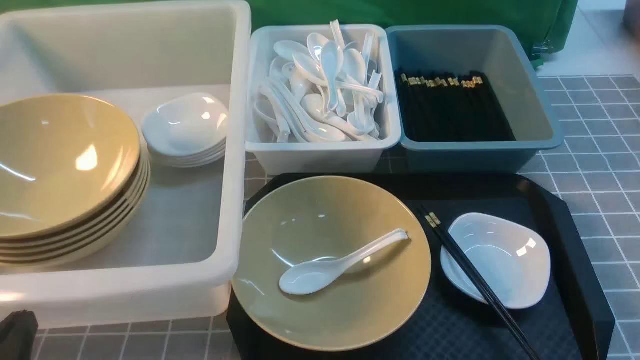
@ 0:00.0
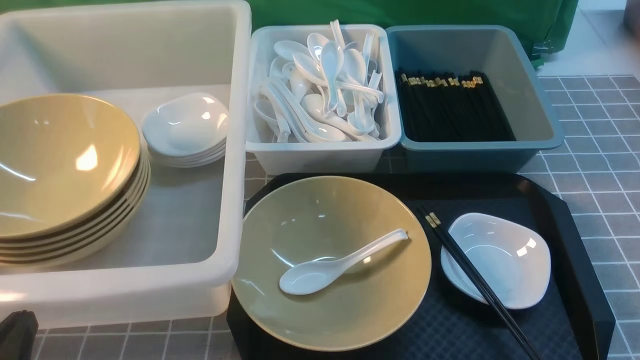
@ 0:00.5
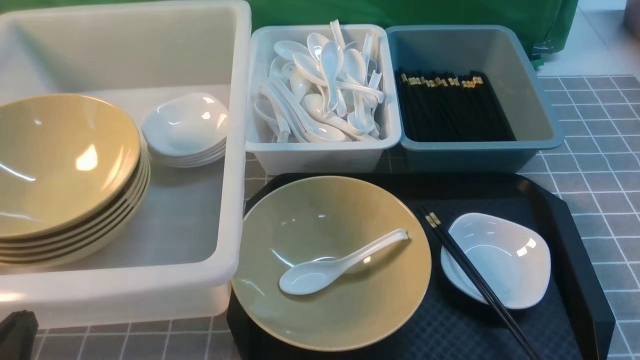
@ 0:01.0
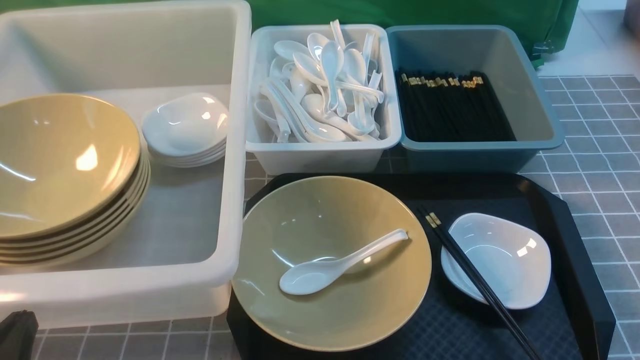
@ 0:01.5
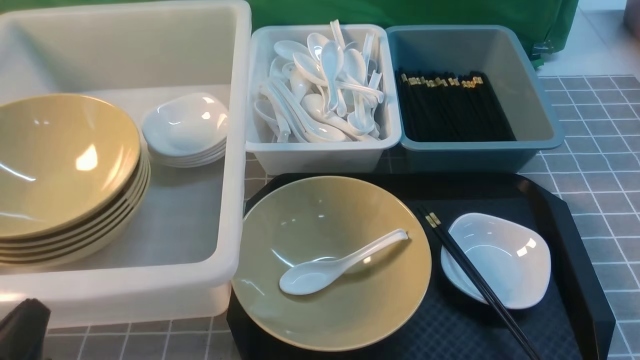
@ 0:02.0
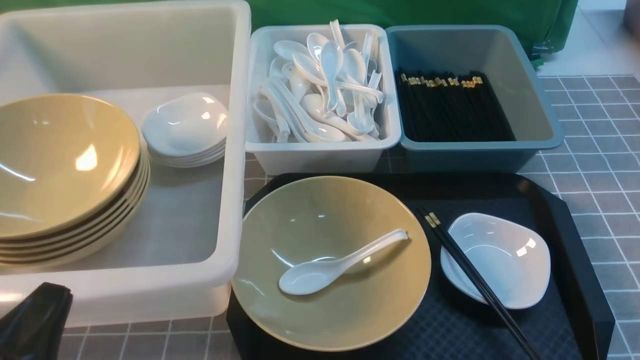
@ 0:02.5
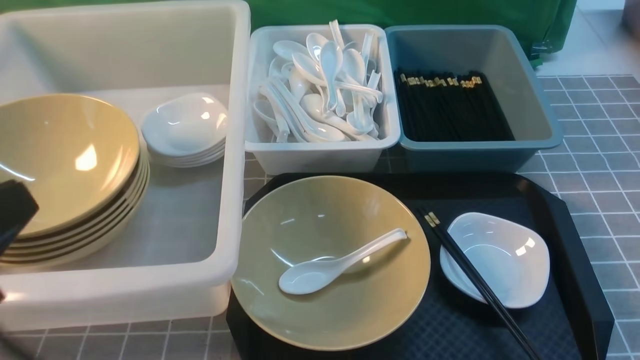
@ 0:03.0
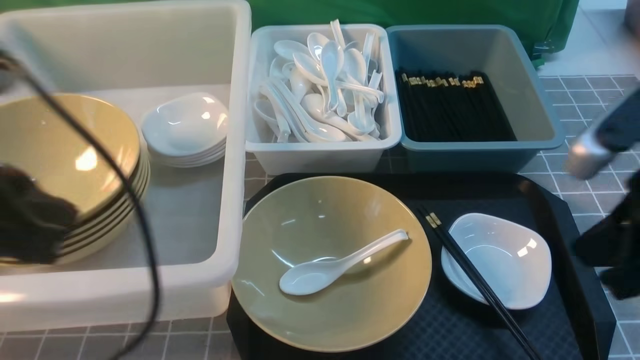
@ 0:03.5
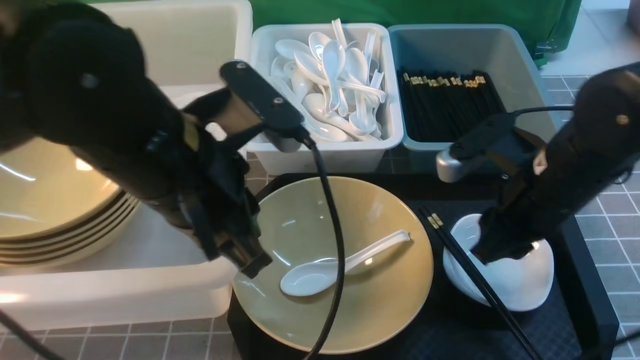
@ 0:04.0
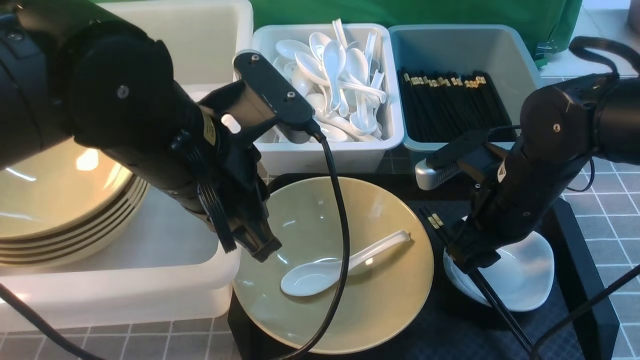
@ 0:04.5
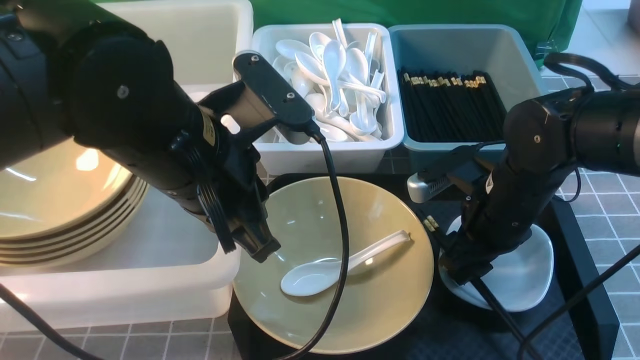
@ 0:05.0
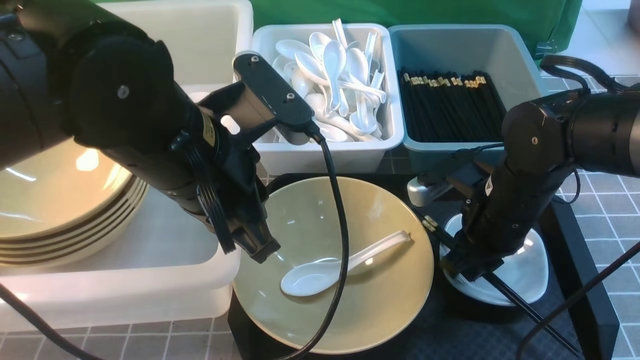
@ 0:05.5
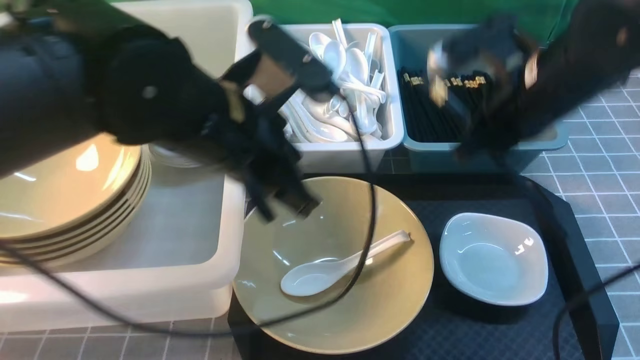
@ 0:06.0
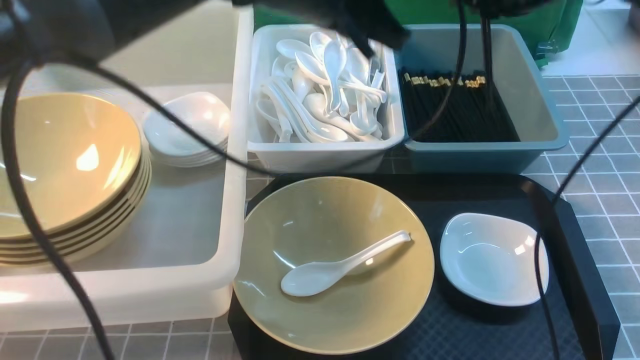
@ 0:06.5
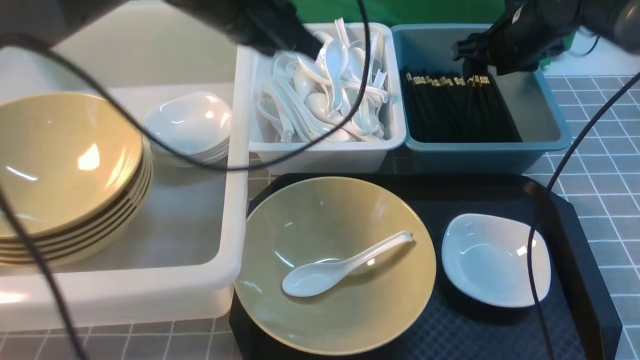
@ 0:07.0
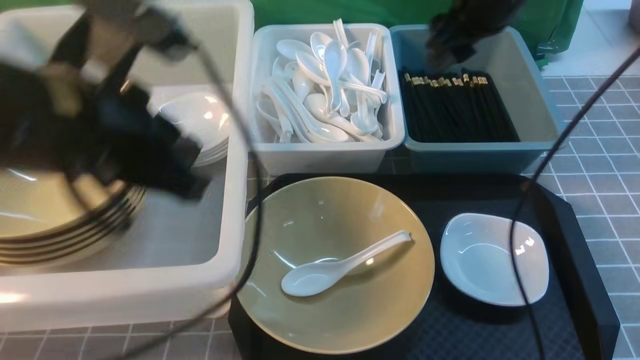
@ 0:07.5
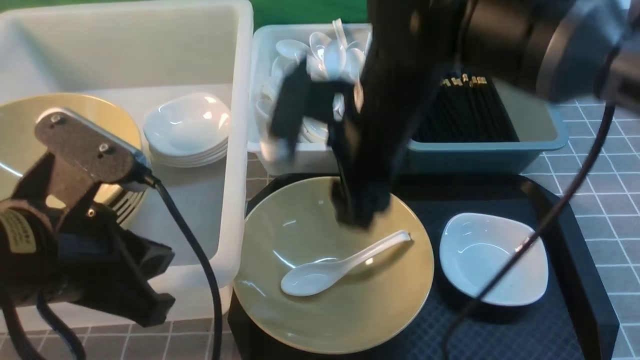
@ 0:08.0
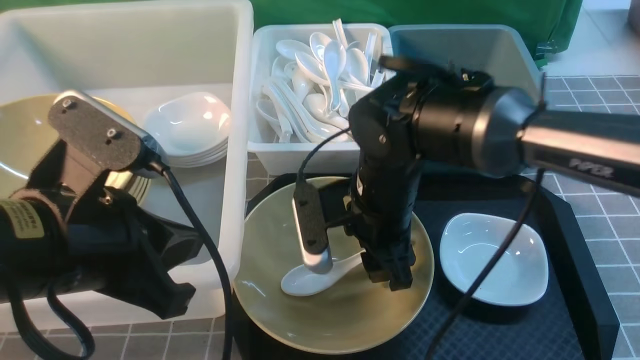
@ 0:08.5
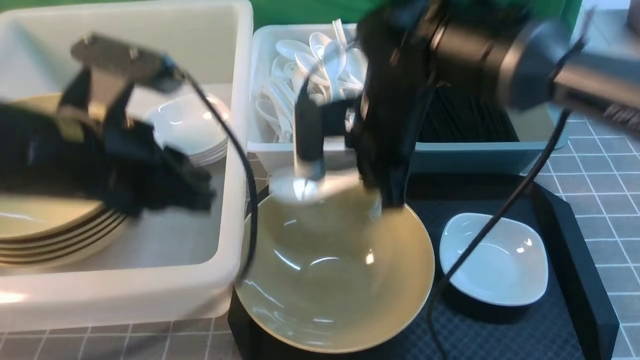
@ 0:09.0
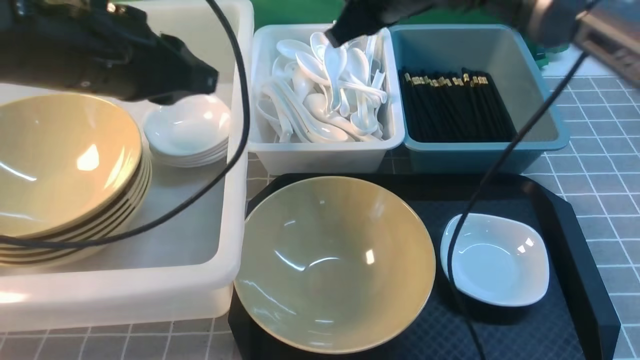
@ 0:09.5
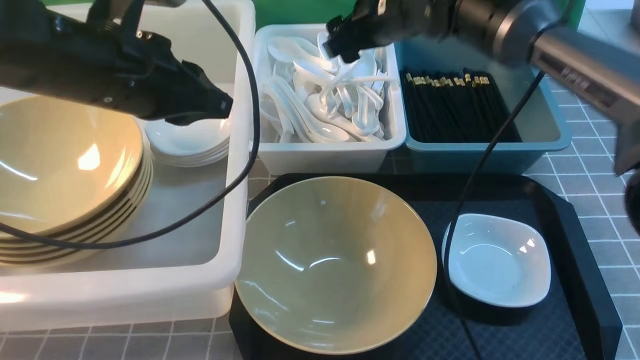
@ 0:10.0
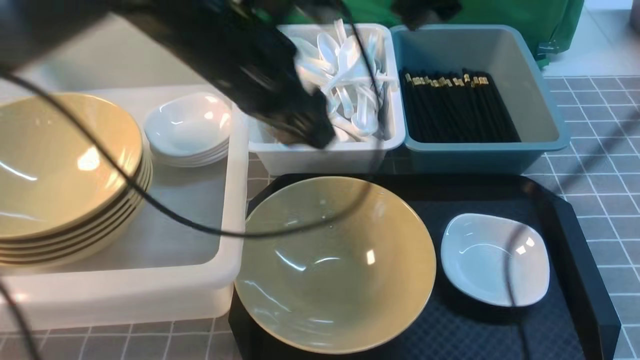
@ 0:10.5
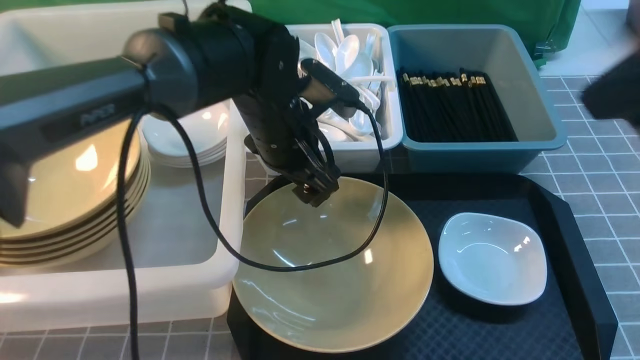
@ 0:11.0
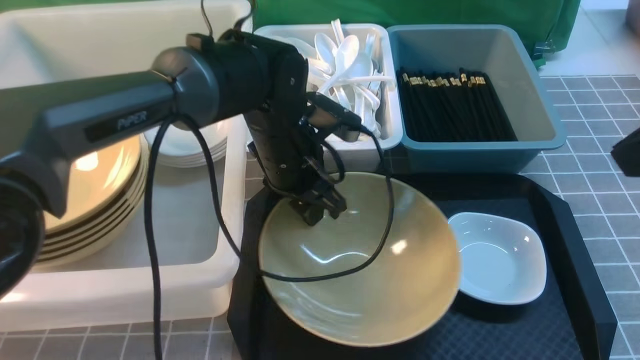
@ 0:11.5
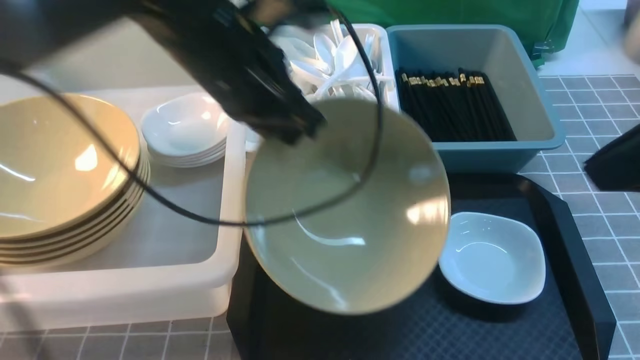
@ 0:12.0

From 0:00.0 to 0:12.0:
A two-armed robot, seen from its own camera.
Task of the whole recording: on grey table put chopsticks spoon bowls plates into blue grey white boxes.
Step, from 0:00.0 to 0:05.5: use the right arm to grab the chopsticks.
Step, from 0:06.0 to 0:07.0: use the right arm to put the chopsticks into the small storage box on the right.
Step, from 0:07.5 to 0:09.0: use the right arm to grab the soup spoon in the middle.
Step, from 0:10.0 to 0:11.5: use the left arm to grab the yellow noodle bowl on the left.
From 0:02.0 to 0:04.0: The left gripper is displaced forward, to the right and upward by roughly 25 cm. The right gripper goes approximately 25 cm forward and to the left, and closes, then opens again.
From 0:04.0 to 0:06.0: The right gripper moves upward and forward, roughly 10 cm, and opens and closes again, while the left gripper moves approximately 5 cm.
From 0:06.0 to 0:08.0: The left gripper shifts some 15 cm to the left and backward; the right gripper shifts about 15 cm to the left, and opens up.
From 0:08.0 to 0:10.0: The two grippers go some 15 cm forward. The right gripper closes, then reopens.
From 0:10.0 to 0:12.0: The right gripper is displaced backward and to the right by approximately 35 cm, and closes up. Meanwhile the left gripper is displaced to the right by roughly 5 cm, reaches roughly 10 cm downward, then returns, and opens and closes again.

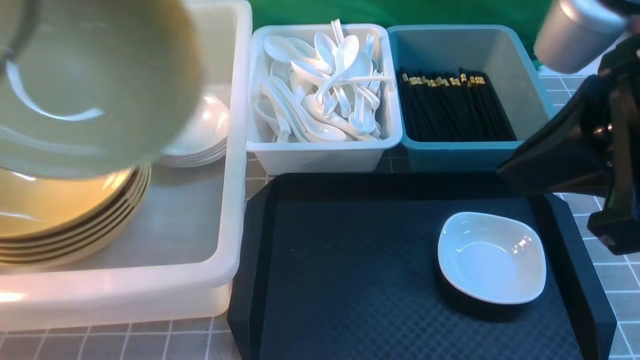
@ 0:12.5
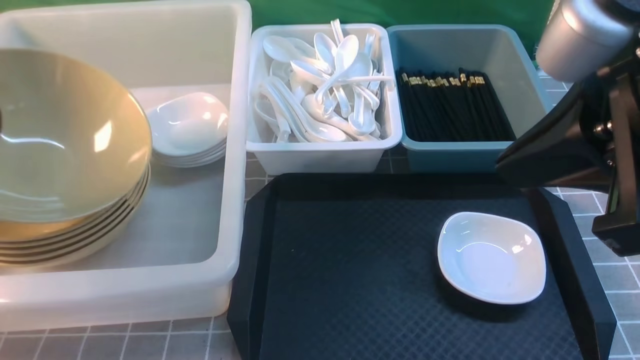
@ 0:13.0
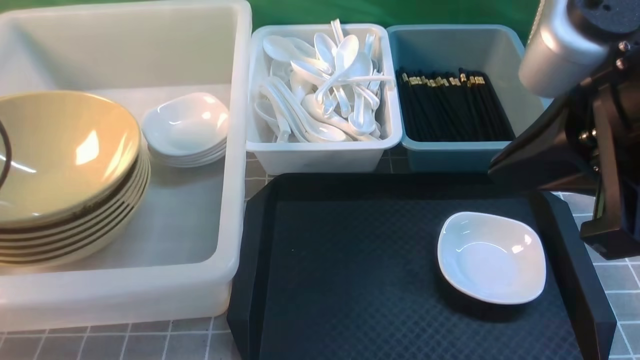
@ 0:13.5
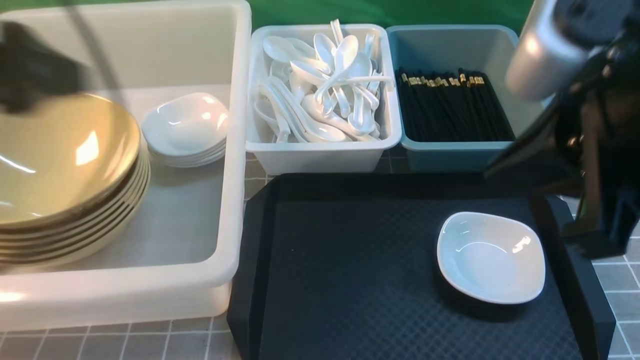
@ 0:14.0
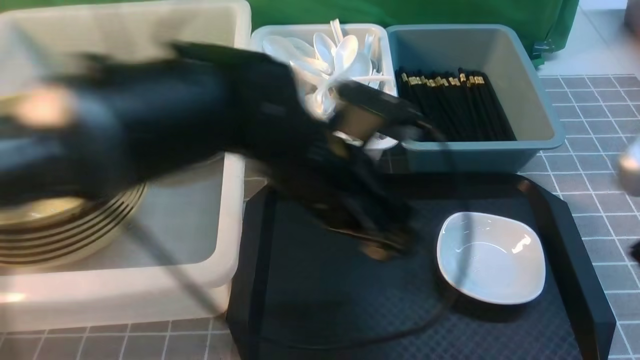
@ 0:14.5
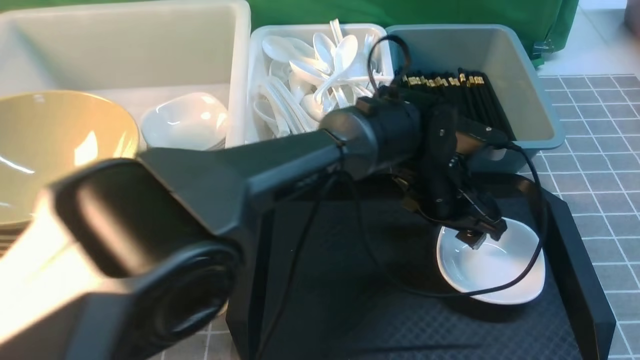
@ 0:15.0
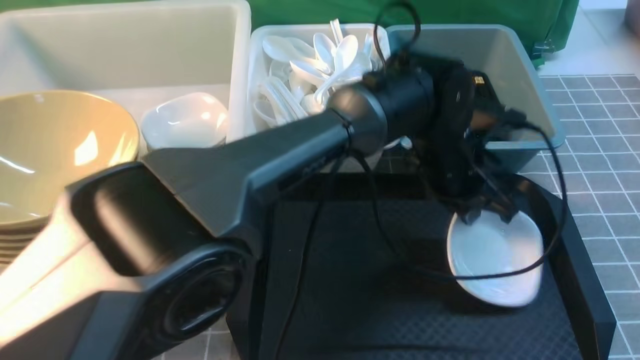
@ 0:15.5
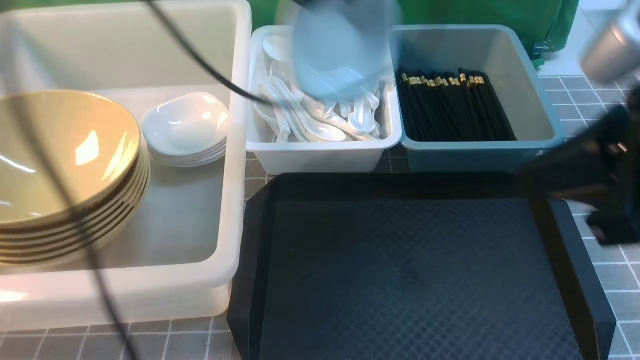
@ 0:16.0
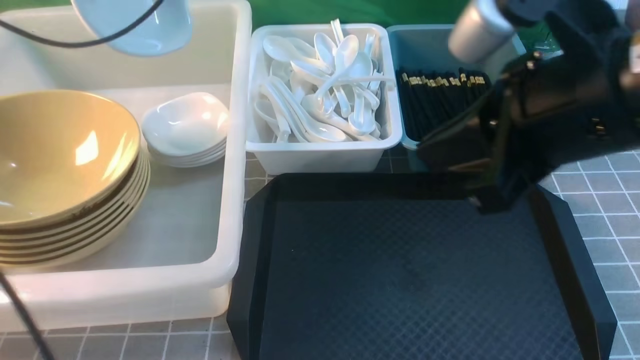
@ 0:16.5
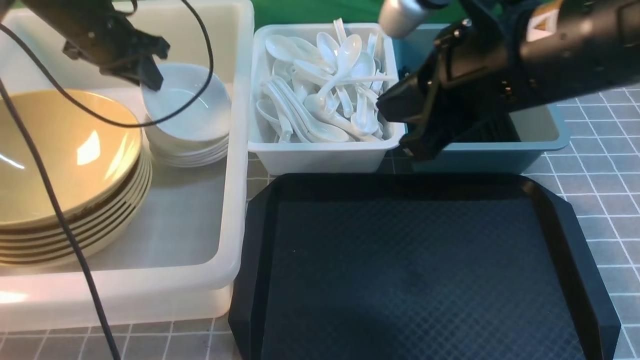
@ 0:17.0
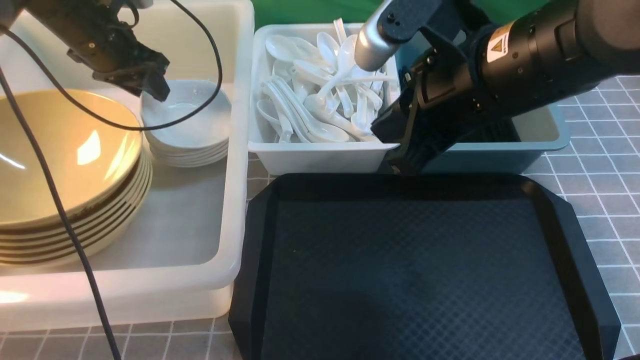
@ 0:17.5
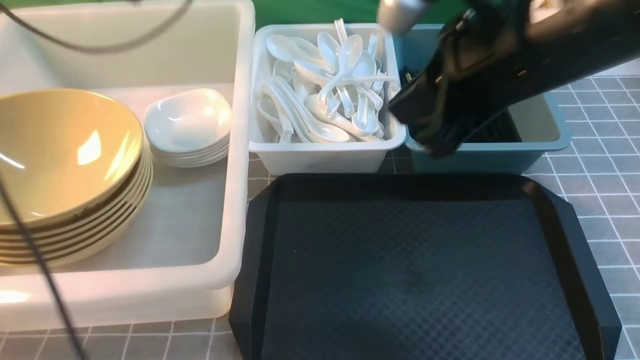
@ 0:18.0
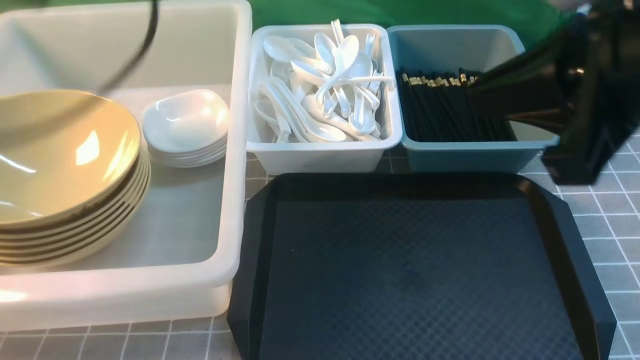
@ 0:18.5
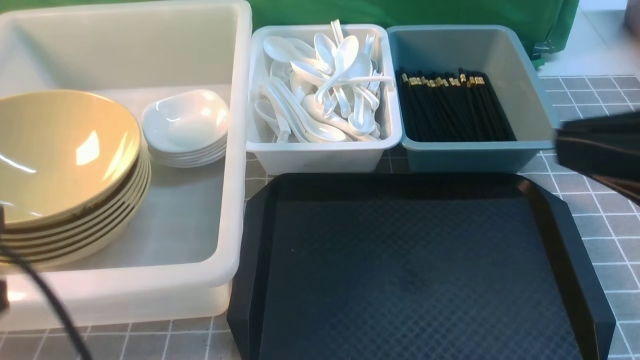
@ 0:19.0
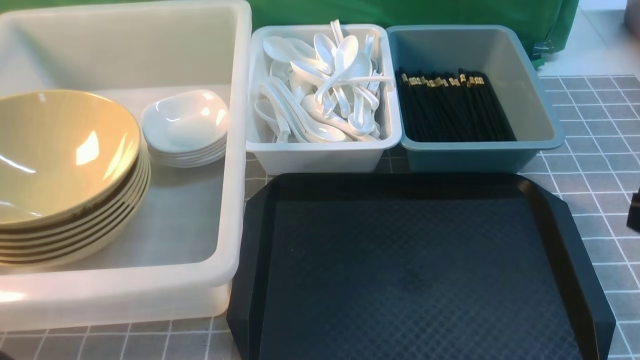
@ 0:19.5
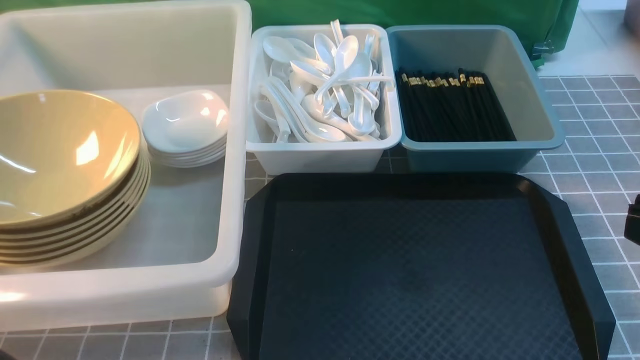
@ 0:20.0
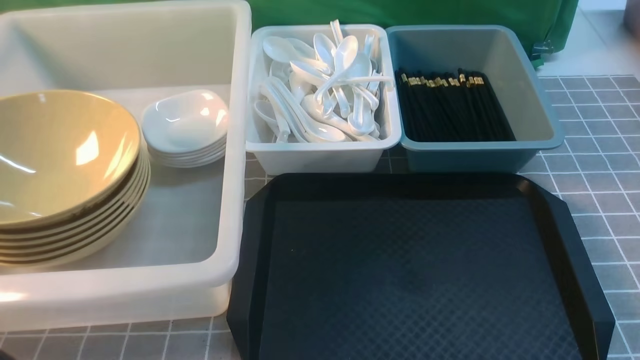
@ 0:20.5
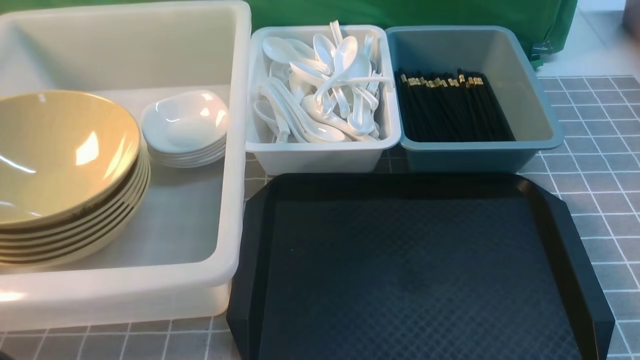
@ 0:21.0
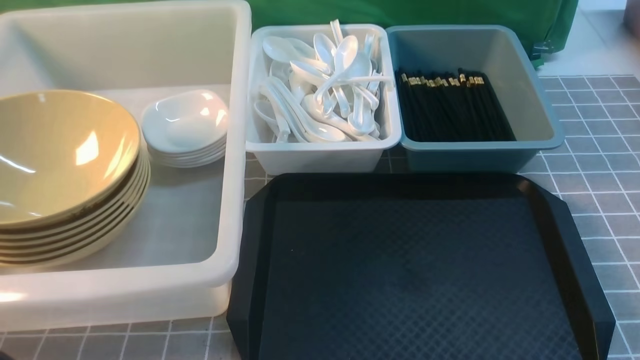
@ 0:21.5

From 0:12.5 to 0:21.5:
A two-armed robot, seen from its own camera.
Task of the whole recording: on grey table put chopsticks spoon bowls plates into blue grey white boxes.
Step, from 0:12.5 to 0:13.5: use the left arm to put the noodle bowl into the large storage box on the left.
Step, from 0:14.0 to 0:15.5: use the left arm to grab the plate.
Step, from 0:16.0 to 0:17.5: use the left arm to put the plate into the large storage box on the left.
From 0:12.5 to 0:14.5: The left gripper moves to the right and downward, approximately 35 cm, and opens its fingers. The right gripper goes roughly 10 cm to the right and downward.
From 0:14.5 to 0:17.0: The right gripper heads forward and to the left, covering some 15 cm, while the left gripper is displaced to the left and forward by some 35 cm, and closes its fingers.
From 0:17.0 to 0:19.5: The left gripper travels backward by some 40 cm, and opens and closes again. Meanwhile the right gripper is displaced backward and to the right by approximately 25 cm.
